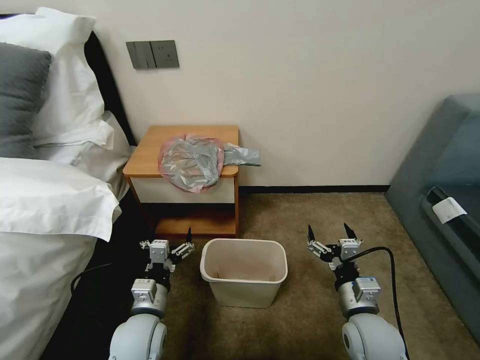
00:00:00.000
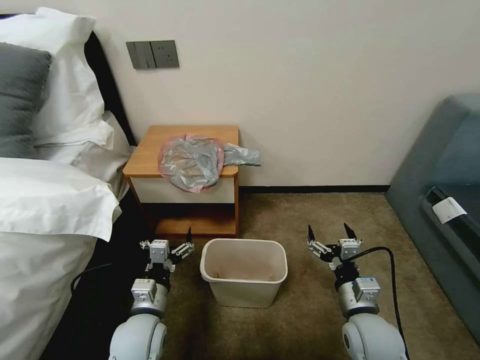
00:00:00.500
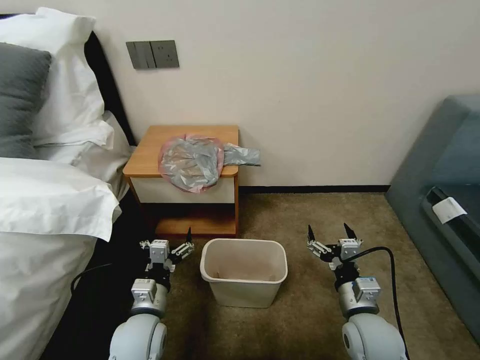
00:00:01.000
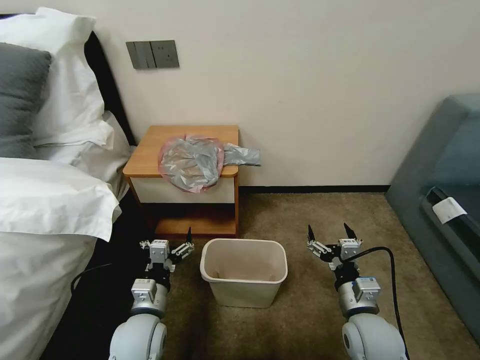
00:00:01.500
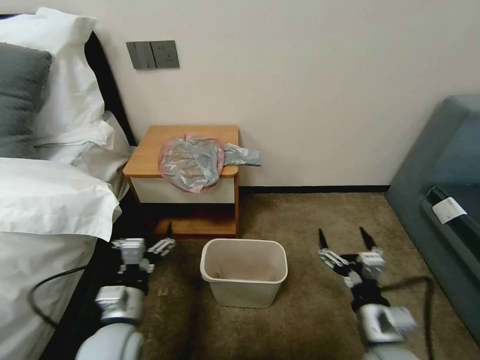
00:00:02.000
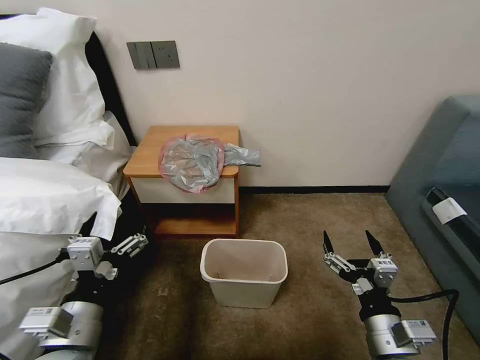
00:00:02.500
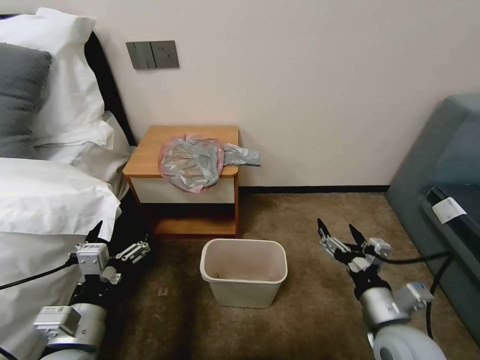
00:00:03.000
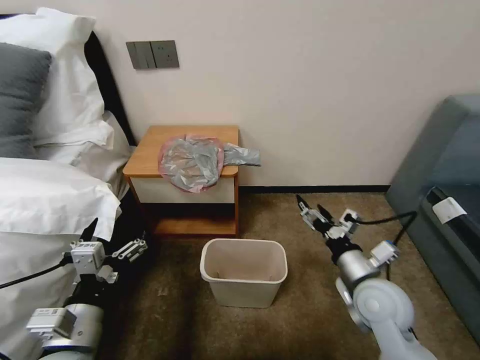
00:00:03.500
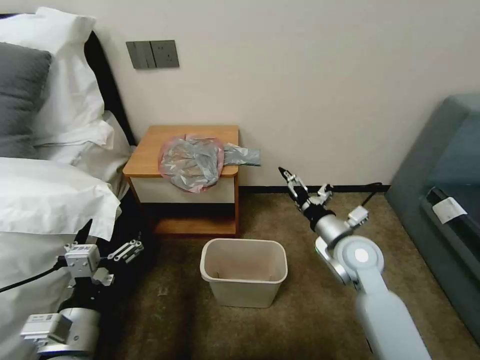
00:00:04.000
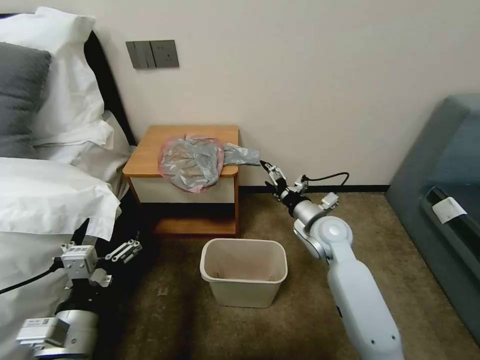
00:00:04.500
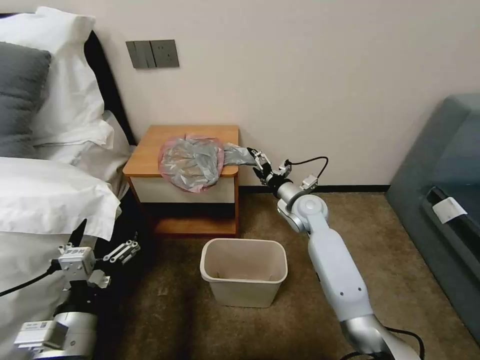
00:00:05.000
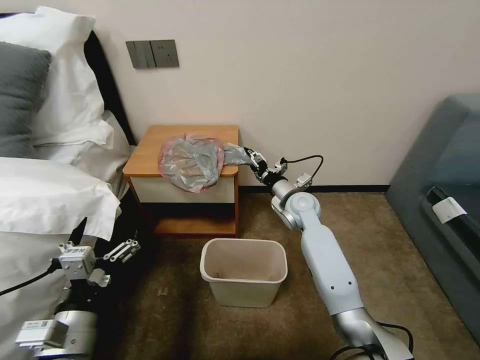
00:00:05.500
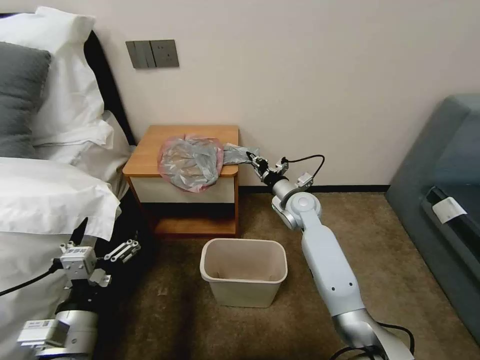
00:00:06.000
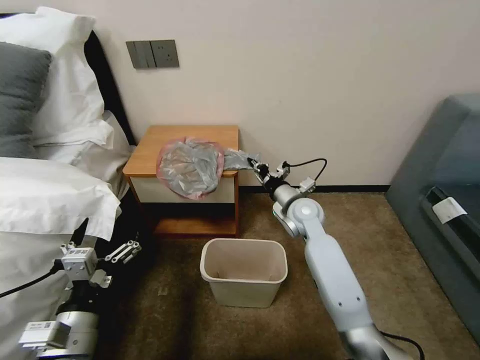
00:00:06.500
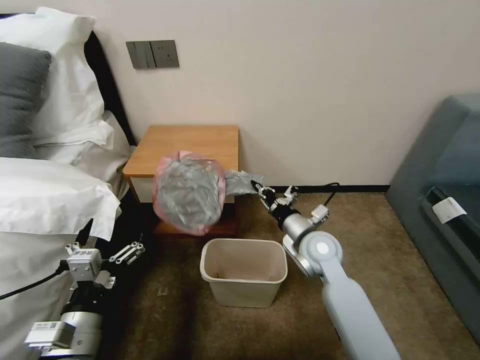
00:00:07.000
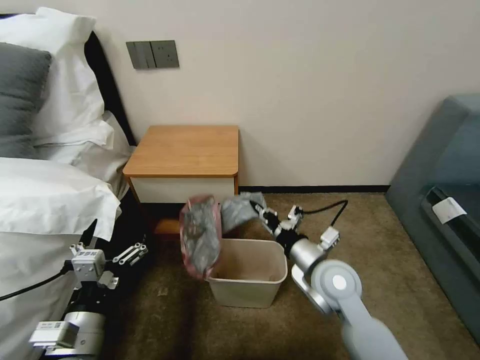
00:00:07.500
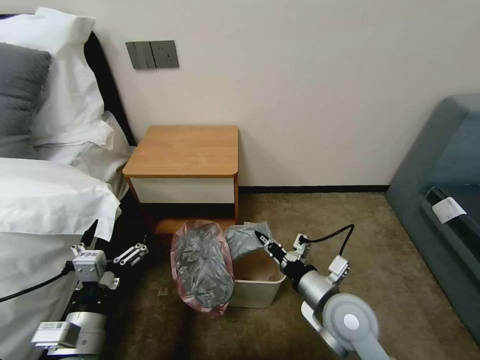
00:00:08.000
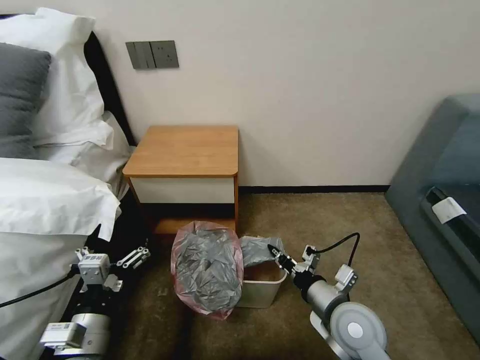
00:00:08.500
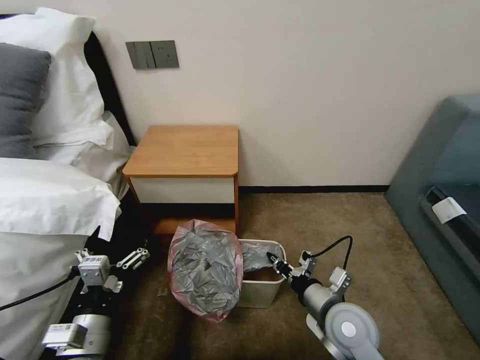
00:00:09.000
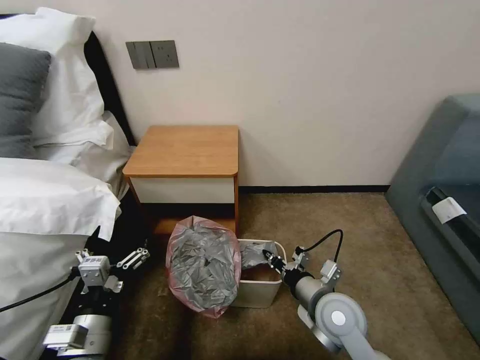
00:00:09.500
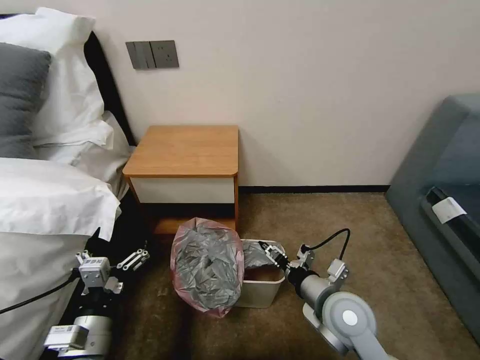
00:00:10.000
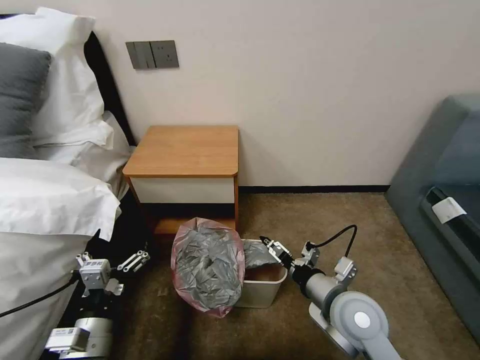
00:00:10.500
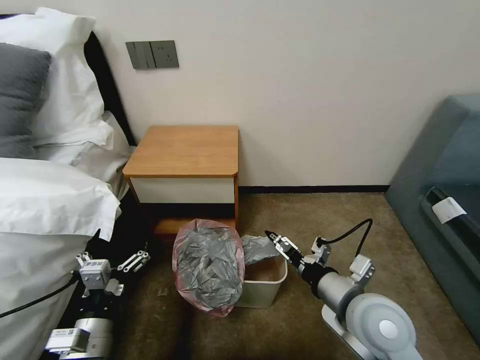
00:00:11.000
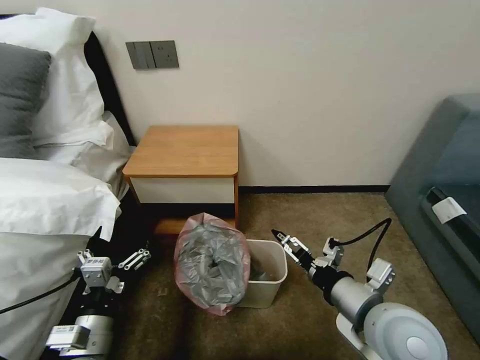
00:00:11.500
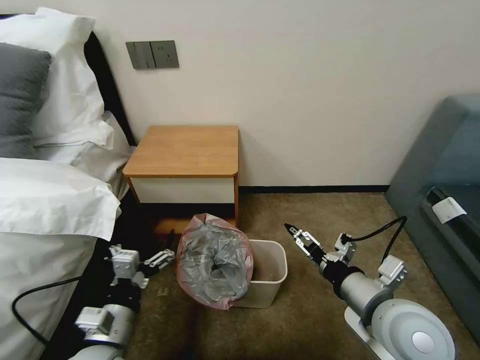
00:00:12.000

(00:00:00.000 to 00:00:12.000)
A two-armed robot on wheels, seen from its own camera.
Task of the whole recording: Pick up the garbage bag from the table and place it over the trash can.
00:00:02.000 - 00:00:04.000: The right gripper travels forward by roughly 20 cm. The left gripper moves upward and backward, some 10 cm.
00:00:04.000 - 00:00:06.000: The right gripper shifts about 20 cm forward and to the left, and closes.
00:00:06.000 - 00:00:08.000: The right gripper goes some 25 cm backward.
00:00:08.000 - 00:00:10.000: The right gripper opens its fingers.
00:00:10.000 - 00:00:12.000: The right gripper travels upward by roughly 10 cm, and opens its fingers.

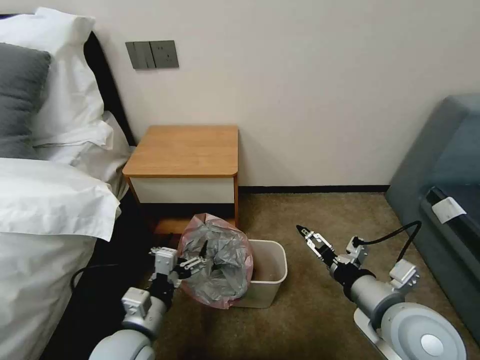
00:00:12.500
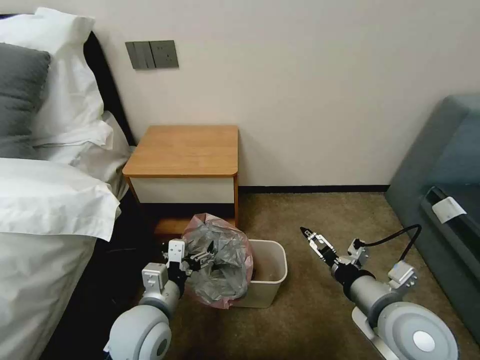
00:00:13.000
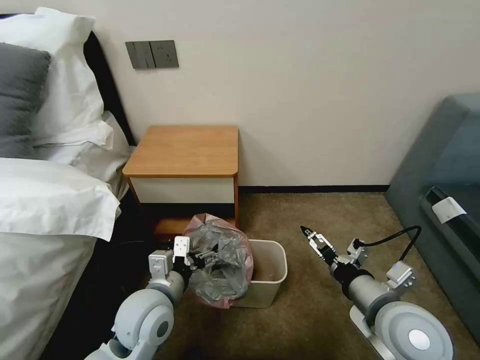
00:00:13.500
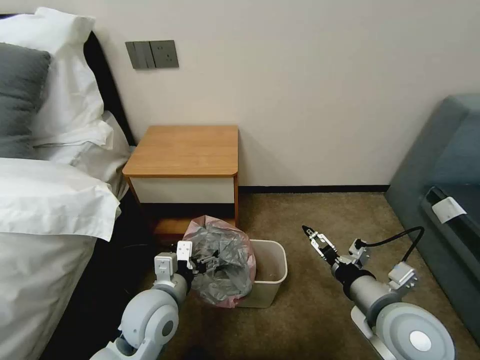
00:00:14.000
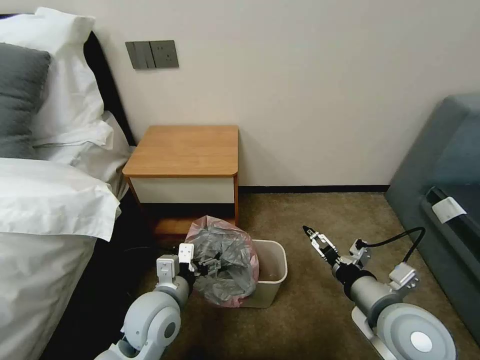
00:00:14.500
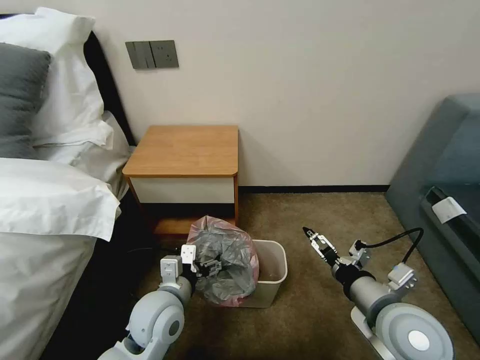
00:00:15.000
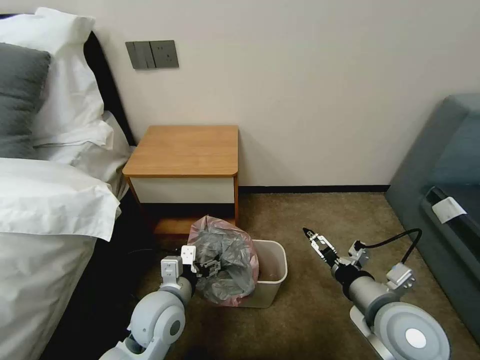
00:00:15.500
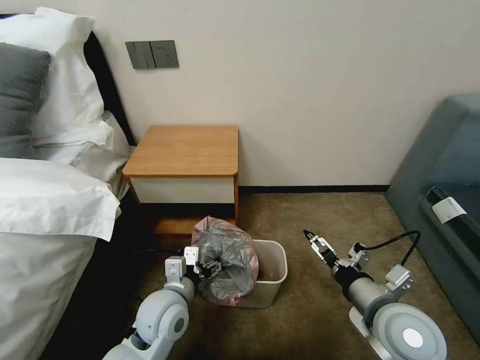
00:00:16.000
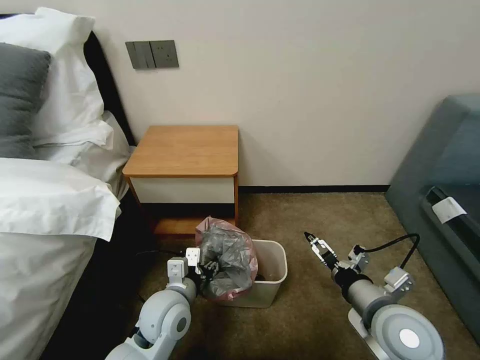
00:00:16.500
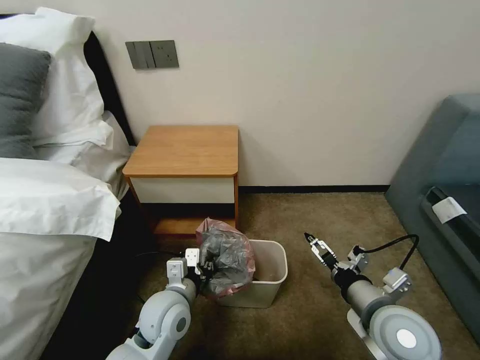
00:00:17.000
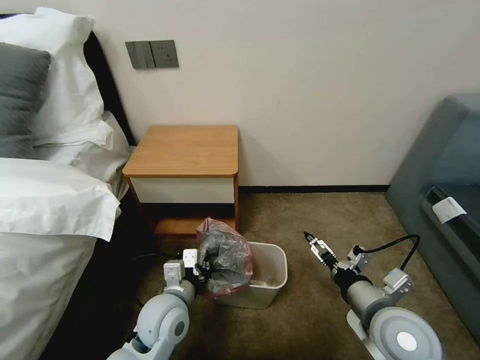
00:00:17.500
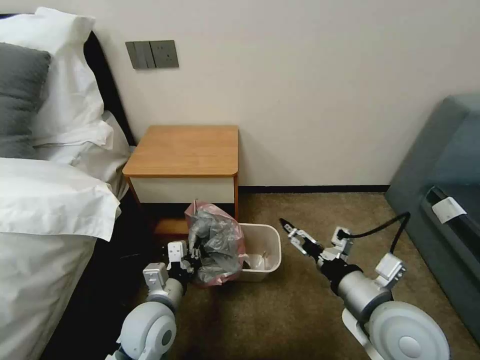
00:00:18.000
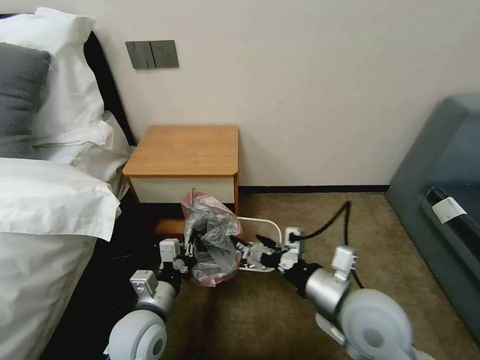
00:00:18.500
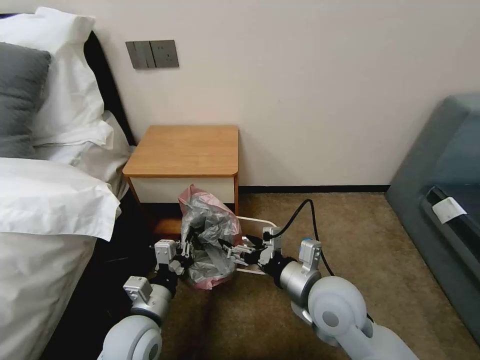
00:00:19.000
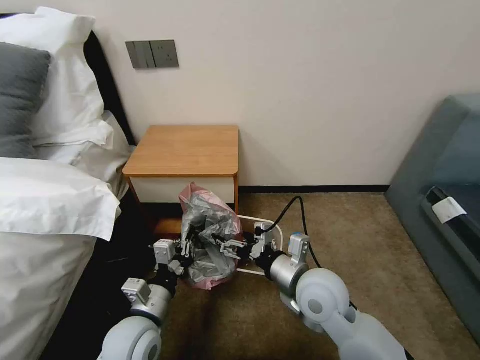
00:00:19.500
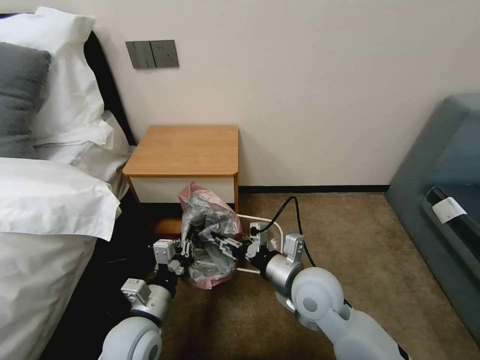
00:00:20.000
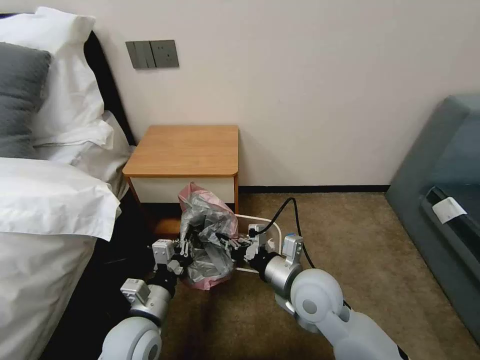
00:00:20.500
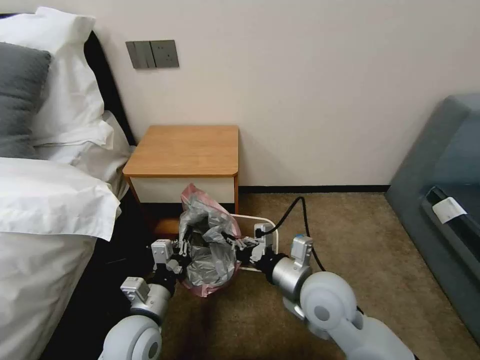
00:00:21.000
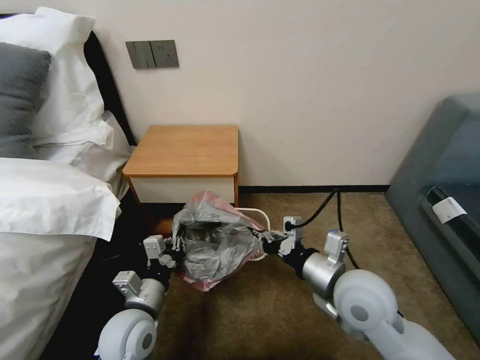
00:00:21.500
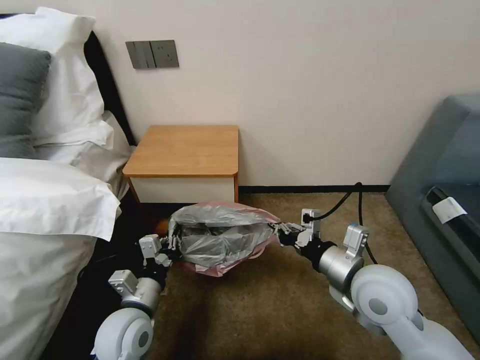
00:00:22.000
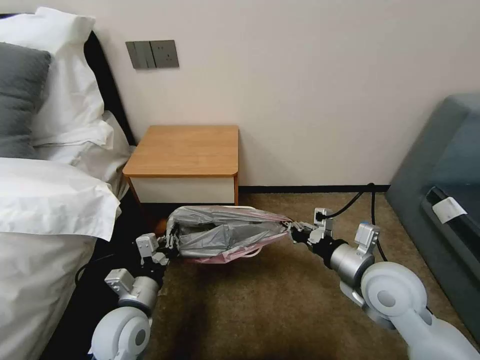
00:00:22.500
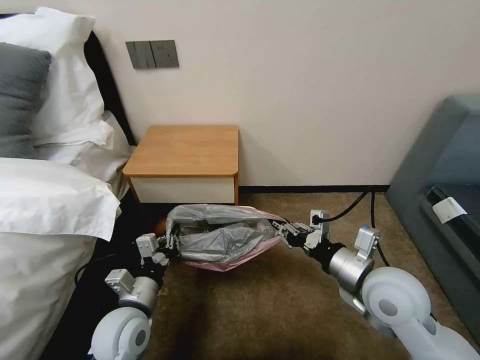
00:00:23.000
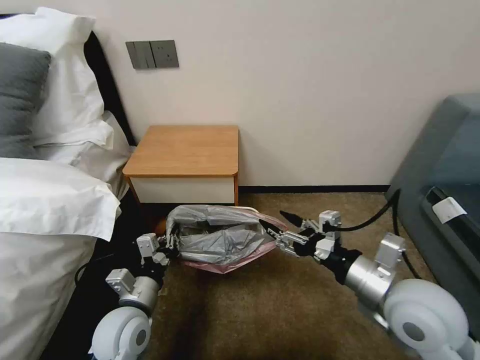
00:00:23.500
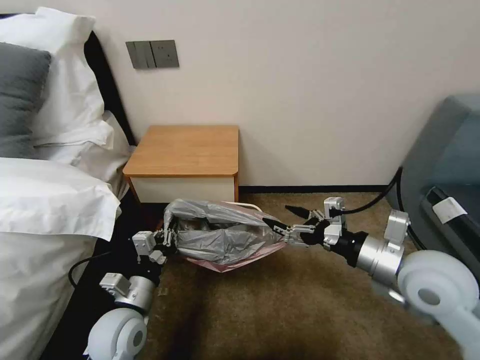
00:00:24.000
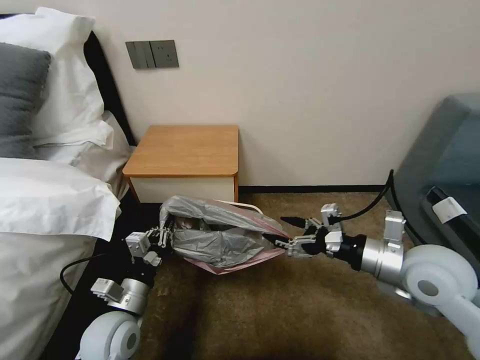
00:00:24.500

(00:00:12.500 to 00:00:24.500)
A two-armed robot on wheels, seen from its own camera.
Task of the whole recording: Pick up the garbage bag from the table and place it over the trash can.
00:00:12.500 - 00:00:14.500: The left gripper heads forward, covering approximately 5 cm.
00:00:14.500 - 00:00:16.500: The left gripper closes.
00:00:16.500 - 00:00:18.500: The right gripper is displaced to the left by roughly 5 cm. Meanwhile the left gripper moves some 5 cm, and closes up.
00:00:18.500 - 00:00:20.500: The right gripper heads to the left, covering approximately 5 cm, and closes its fingers.
00:00:20.500 - 00:00:22.500: The right gripper moves to the right, roughly 10 cm.
00:00:22.500 - 00:00:24.500: The right gripper goes roughly 5 cm to the right, and opens.

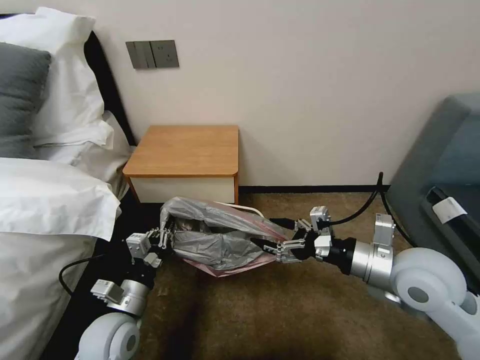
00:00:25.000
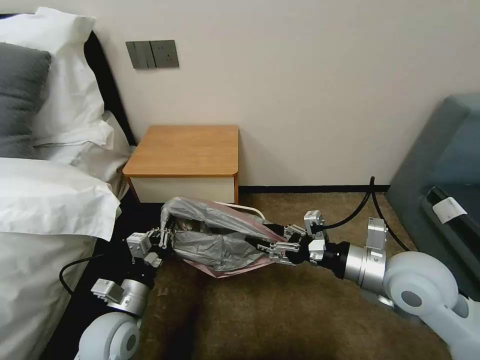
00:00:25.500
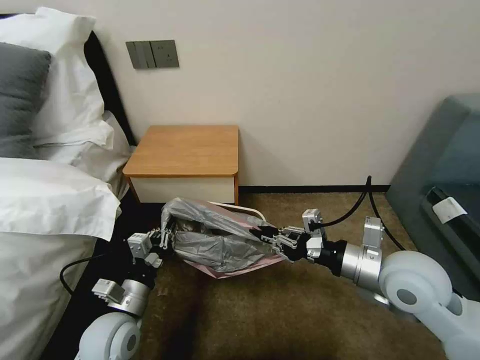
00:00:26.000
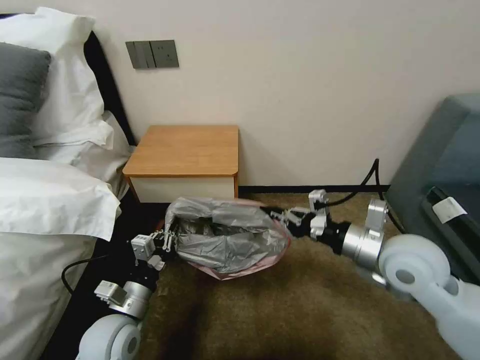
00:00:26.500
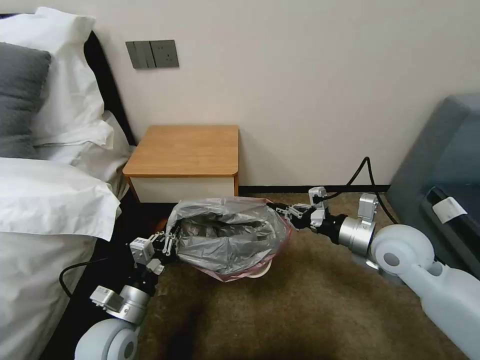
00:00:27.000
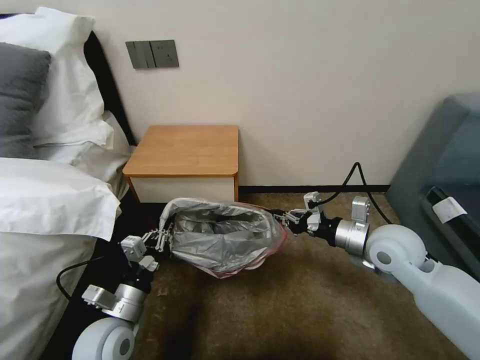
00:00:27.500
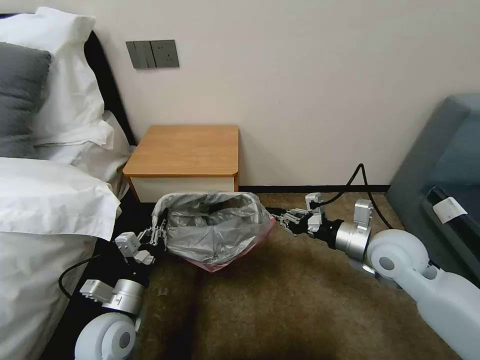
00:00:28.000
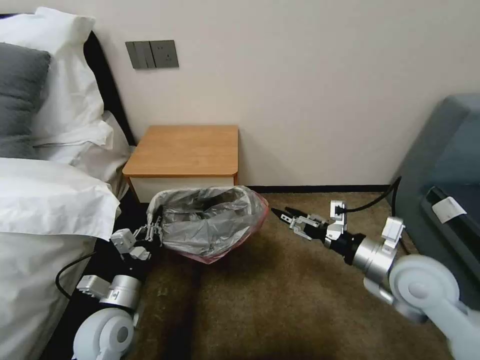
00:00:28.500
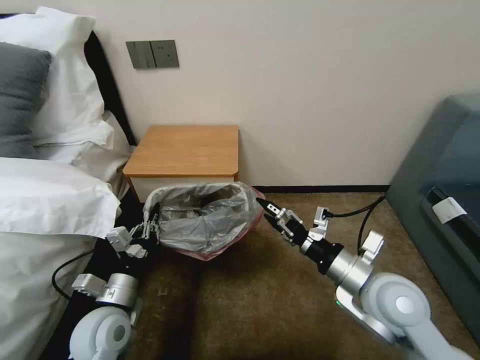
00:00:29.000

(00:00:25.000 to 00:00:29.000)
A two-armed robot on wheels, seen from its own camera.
Task of the whole recording: Pick up the garbage bag from the table and place it over the trash can.
00:00:25.000 - 00:00:27.000: The right gripper goes some 5 cm forward, and closes up.
00:00:27.000 - 00:00:29.000: The right gripper heads backward and to the left, covering approximately 10 cm, and opens.
